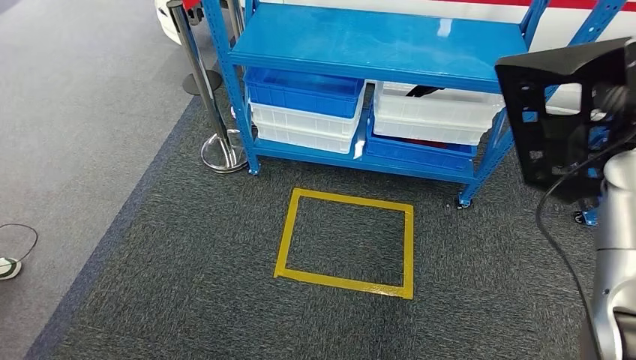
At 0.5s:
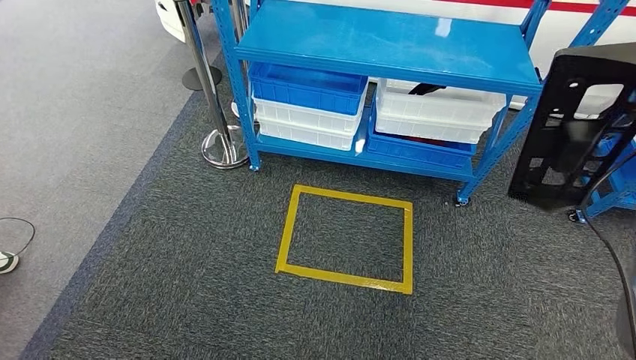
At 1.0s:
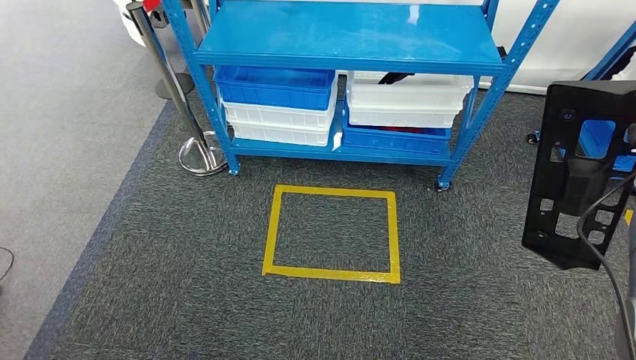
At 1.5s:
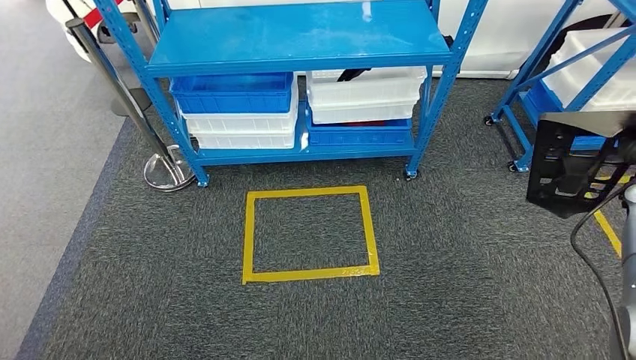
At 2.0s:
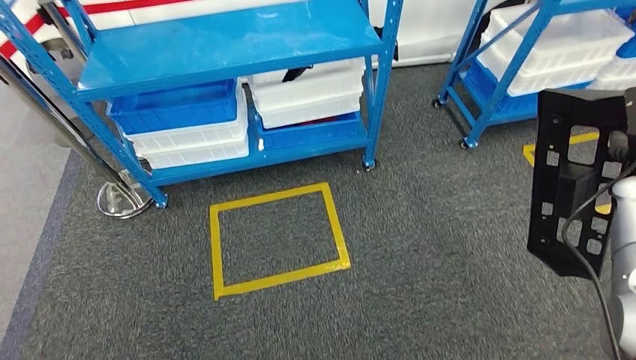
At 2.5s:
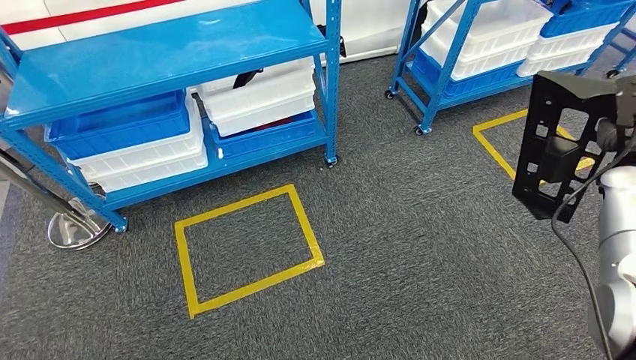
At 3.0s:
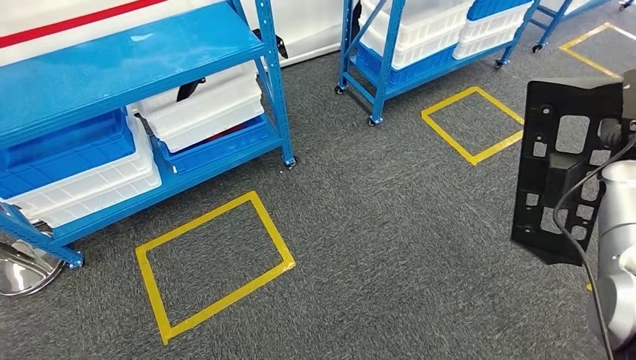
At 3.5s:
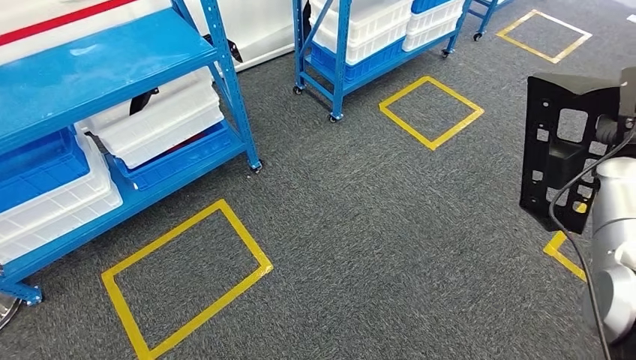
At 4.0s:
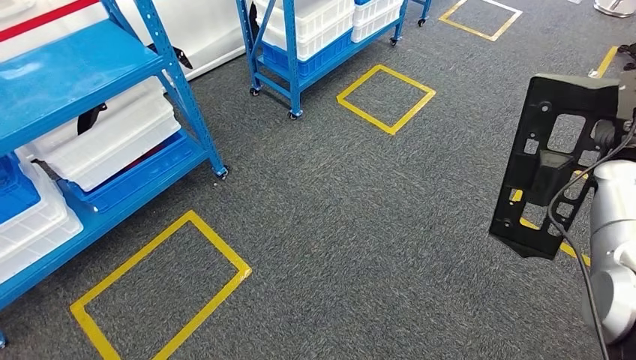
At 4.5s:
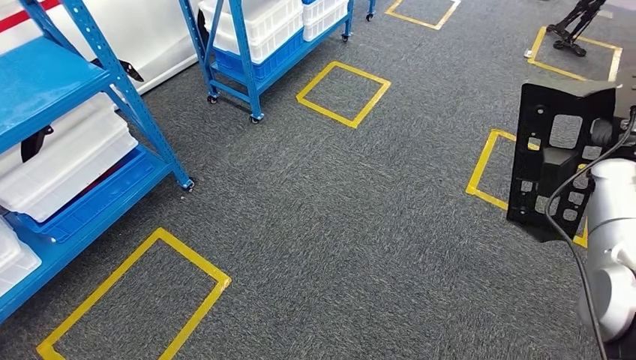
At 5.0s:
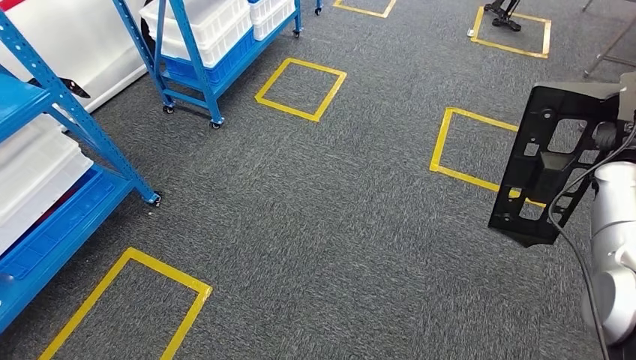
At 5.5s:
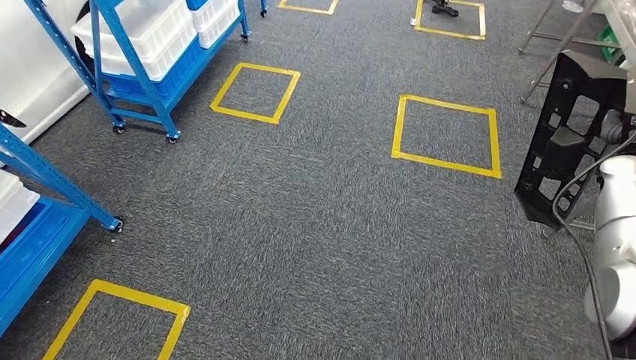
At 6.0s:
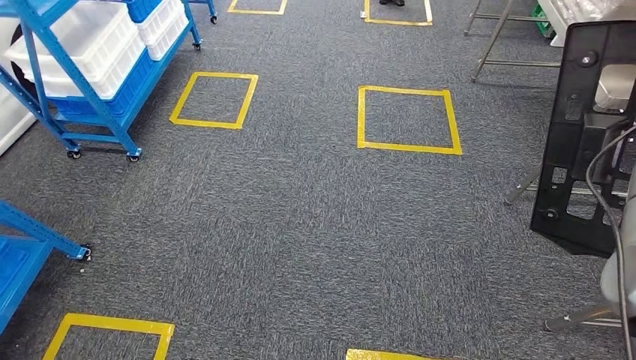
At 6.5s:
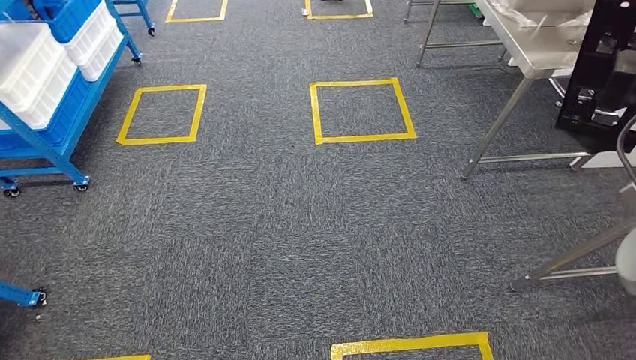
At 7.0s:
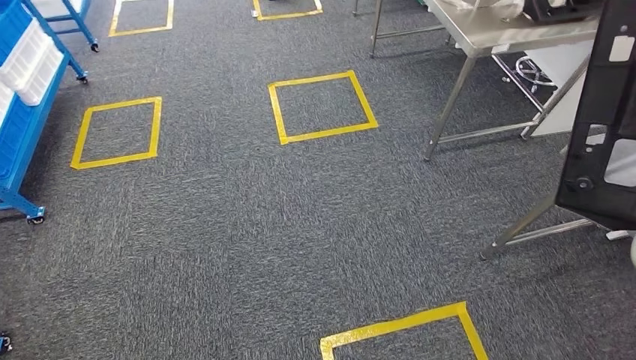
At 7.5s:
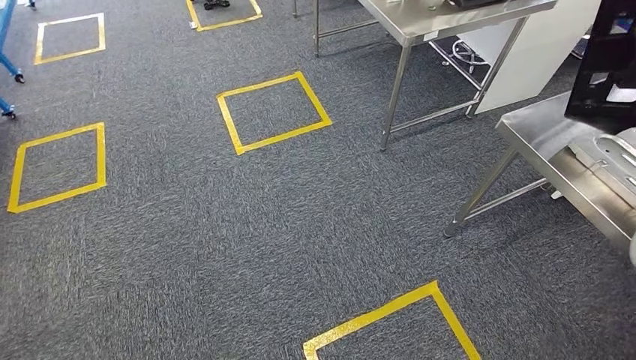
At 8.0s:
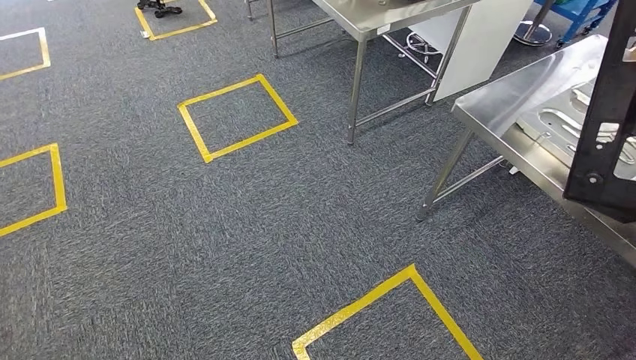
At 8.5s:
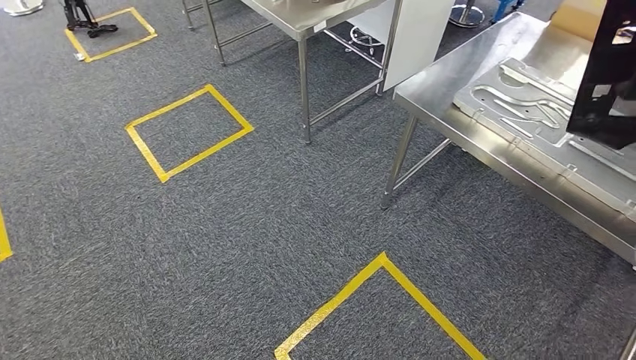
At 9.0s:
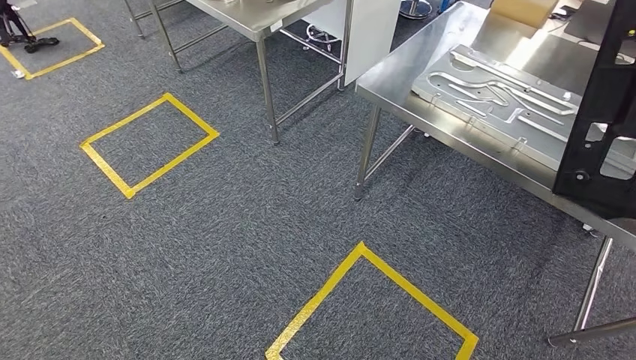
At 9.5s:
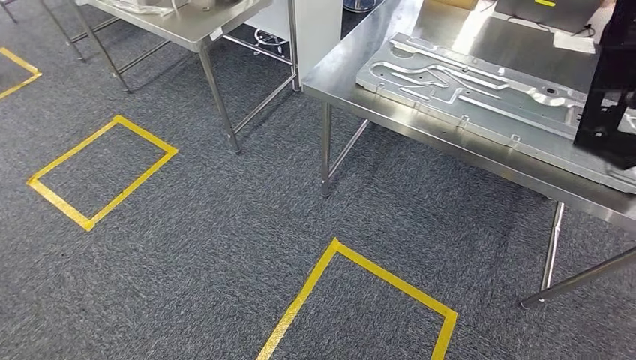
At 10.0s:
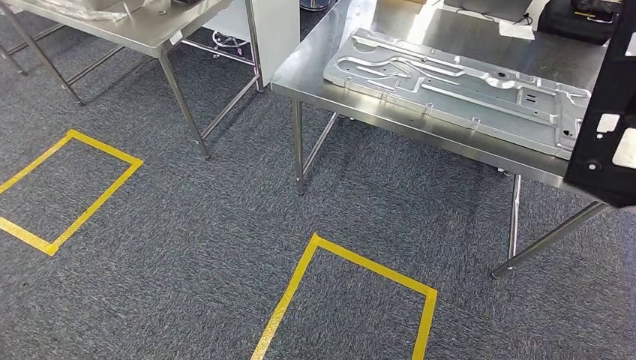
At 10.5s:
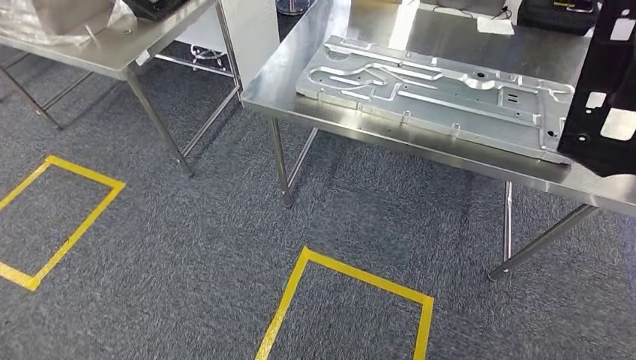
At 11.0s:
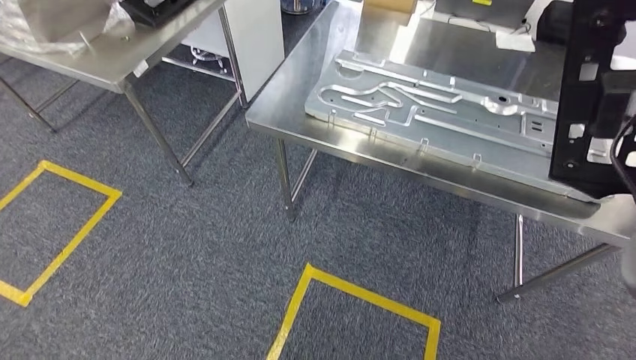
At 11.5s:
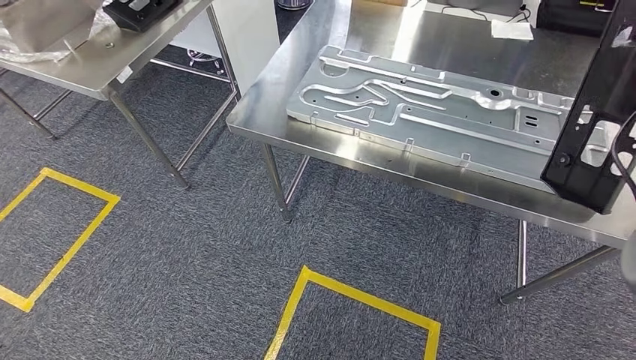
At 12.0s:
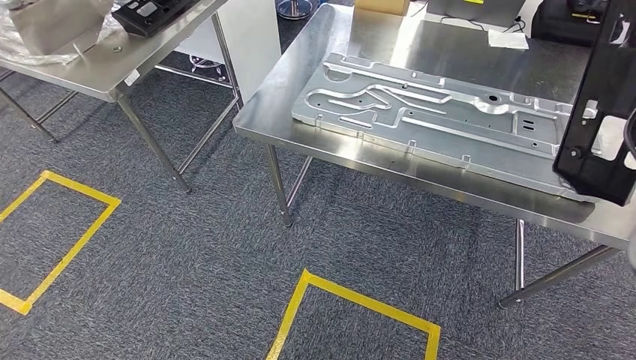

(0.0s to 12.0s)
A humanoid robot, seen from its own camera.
Step, 0.0s - 12.0s: Move the large parts to the workbench.

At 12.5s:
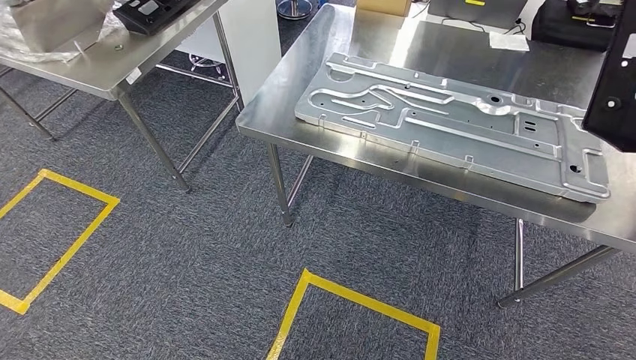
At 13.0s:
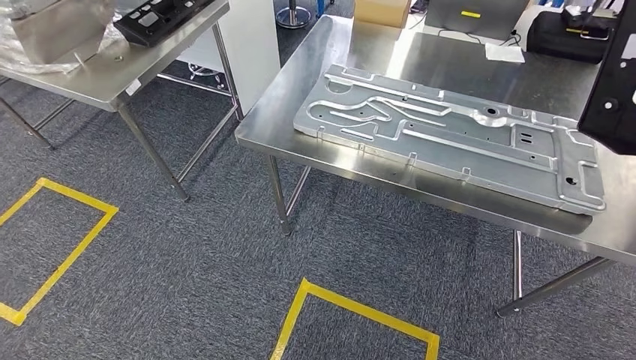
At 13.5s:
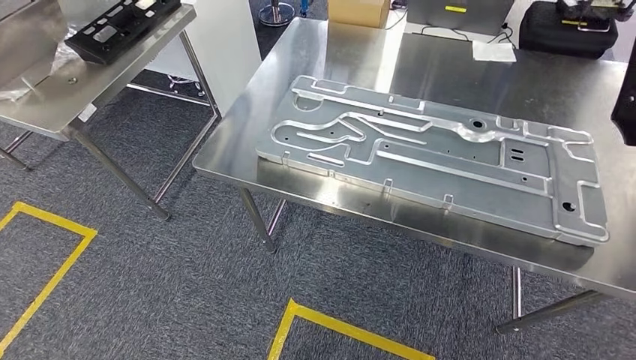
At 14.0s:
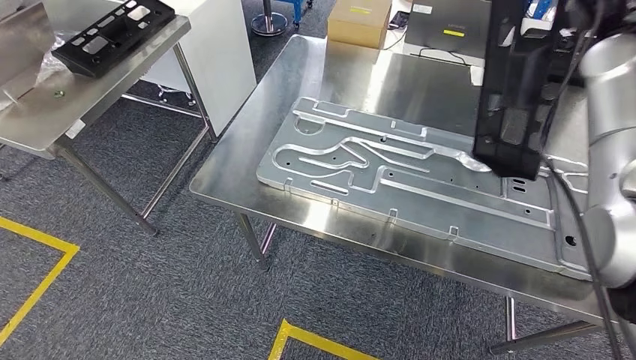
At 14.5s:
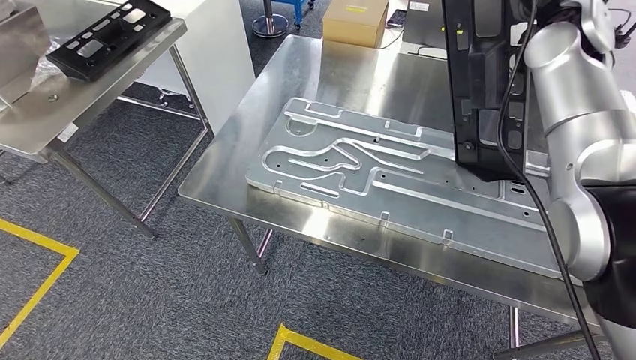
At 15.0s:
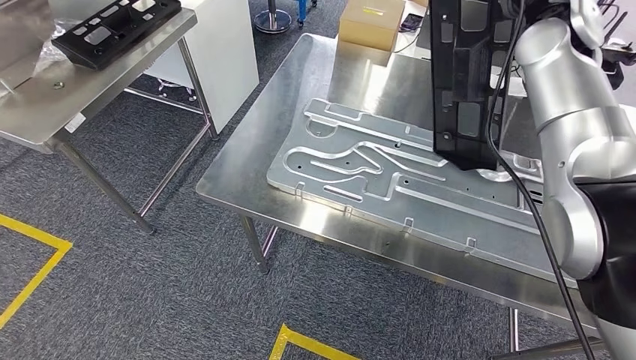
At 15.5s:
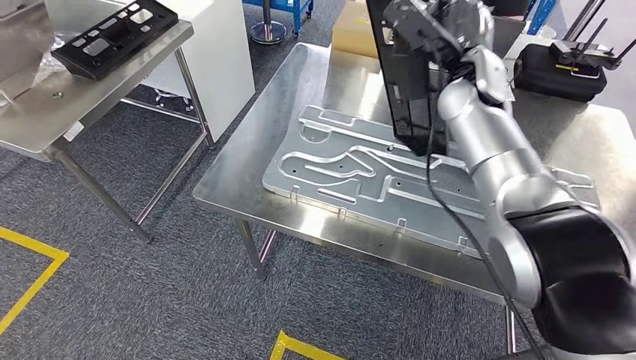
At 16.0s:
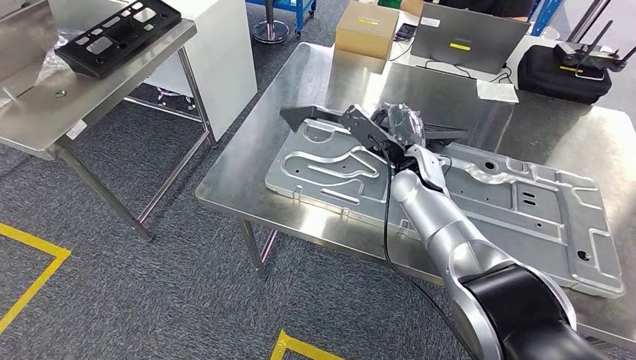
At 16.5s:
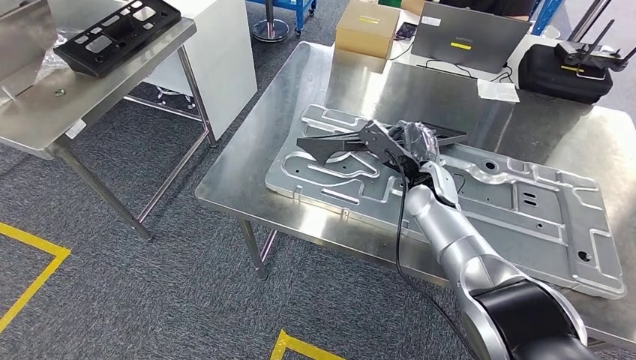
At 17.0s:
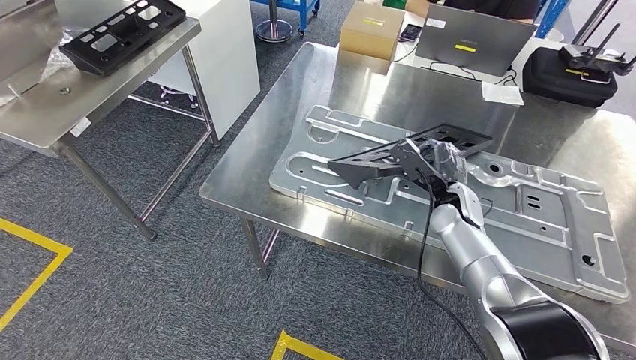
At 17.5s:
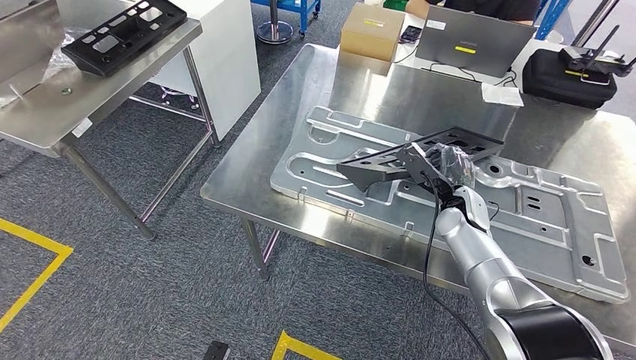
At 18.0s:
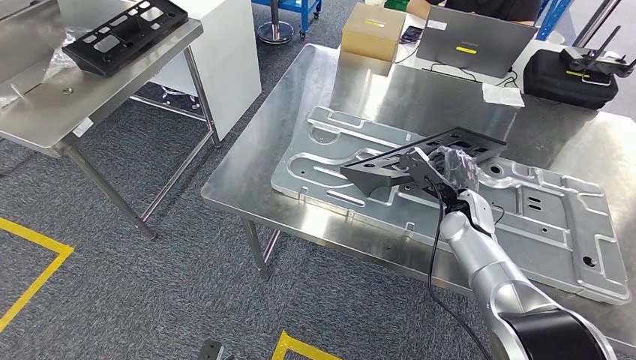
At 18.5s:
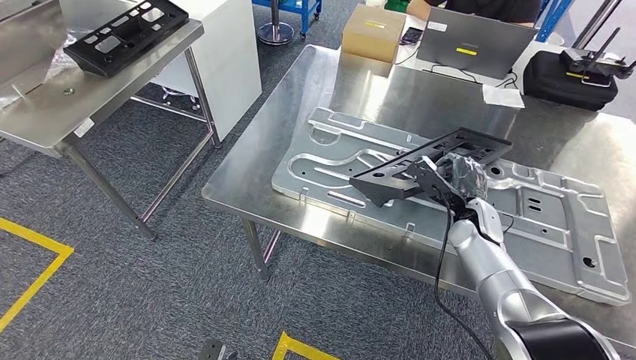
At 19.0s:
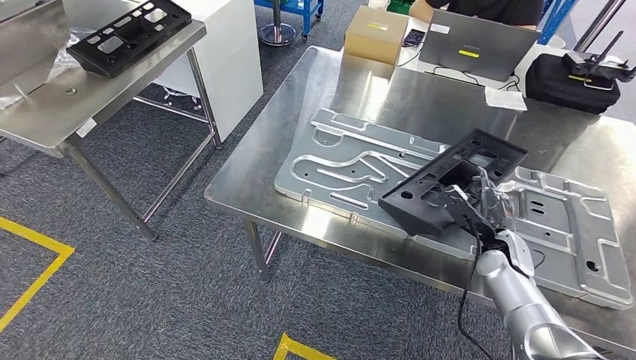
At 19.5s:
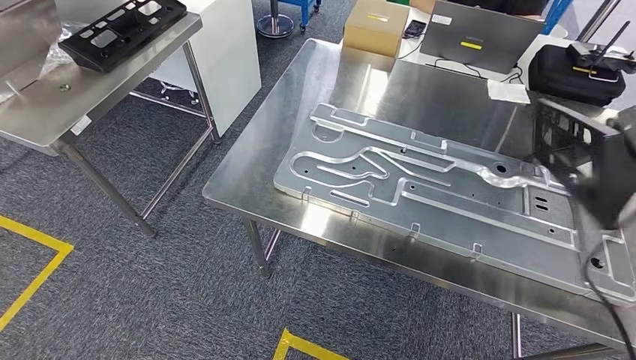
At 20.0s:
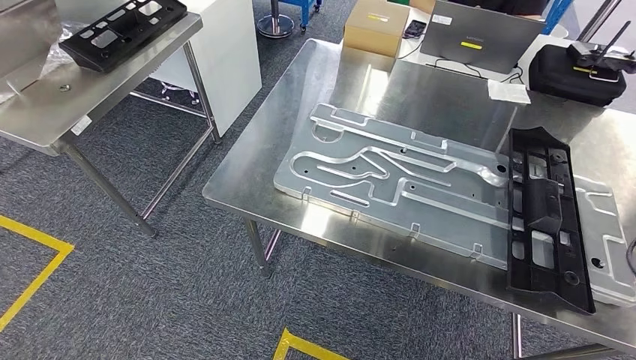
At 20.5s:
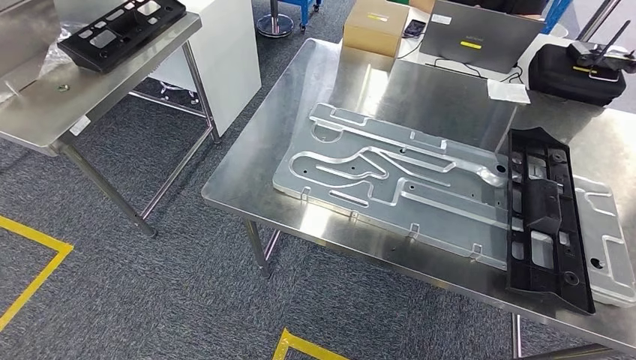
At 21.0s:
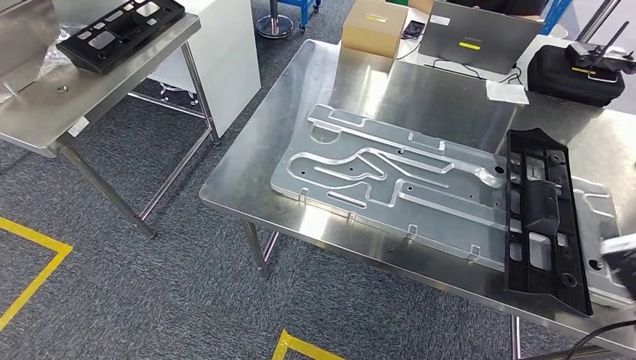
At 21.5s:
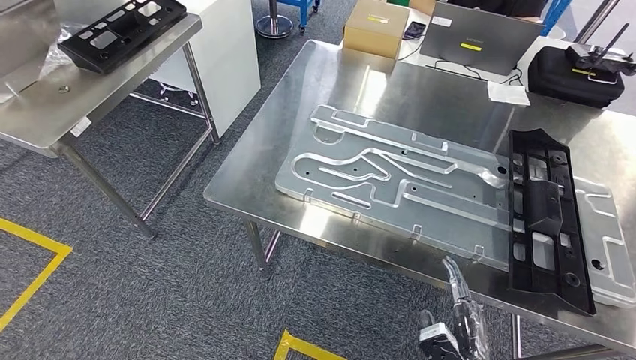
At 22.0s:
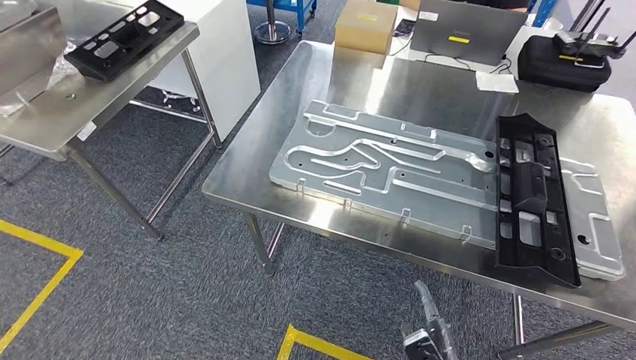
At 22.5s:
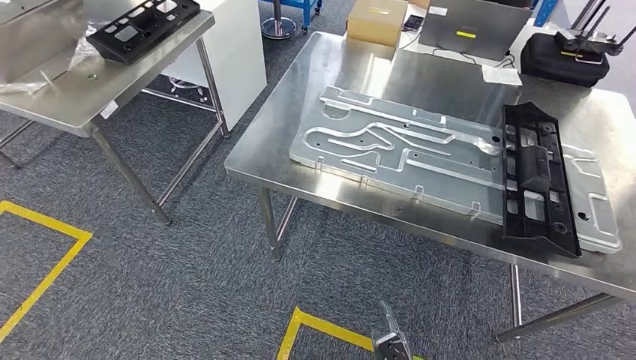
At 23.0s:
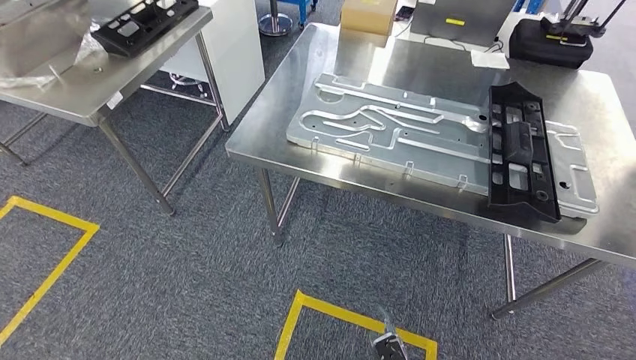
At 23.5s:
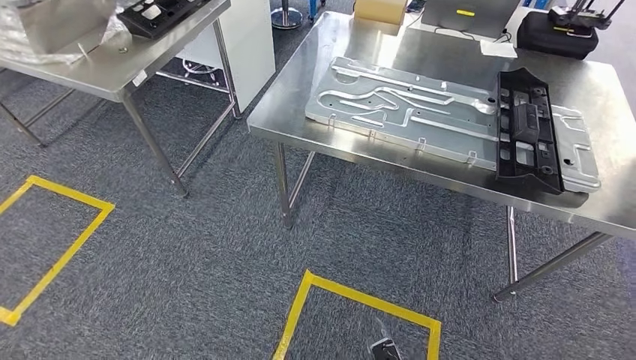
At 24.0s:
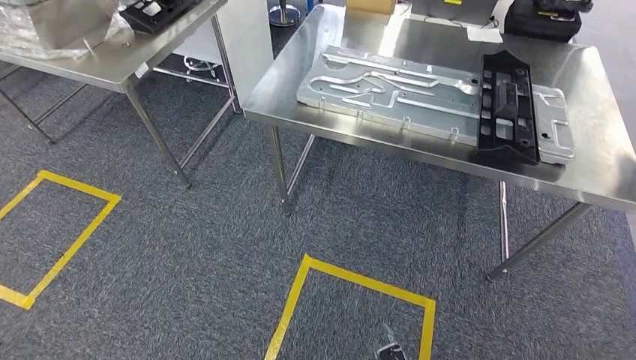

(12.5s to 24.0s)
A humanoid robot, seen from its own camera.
Step, 12.5s - 21.5s: Insert the large parts into the corresponding slots on the workbench.
